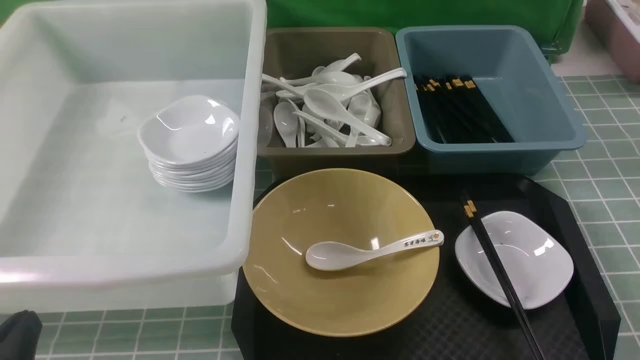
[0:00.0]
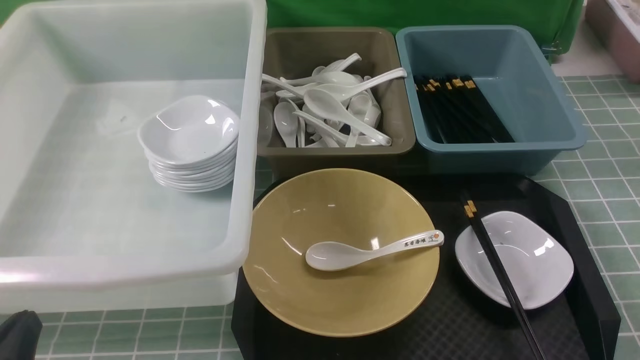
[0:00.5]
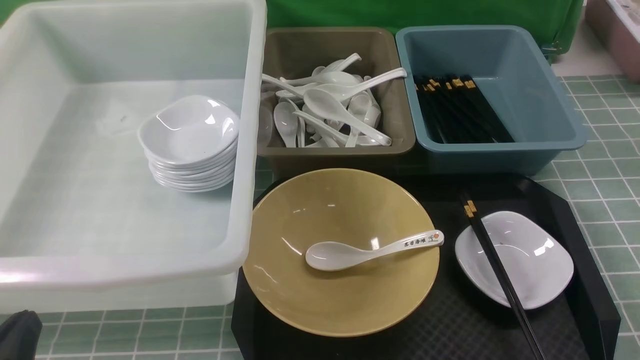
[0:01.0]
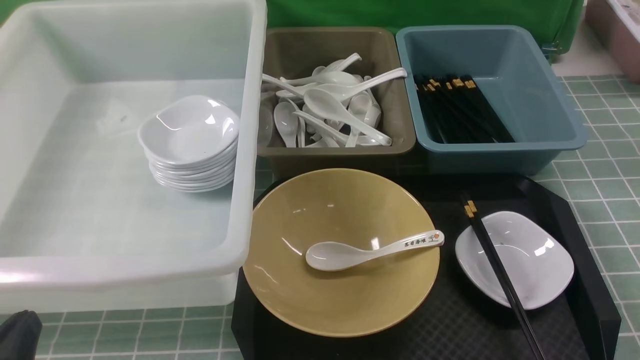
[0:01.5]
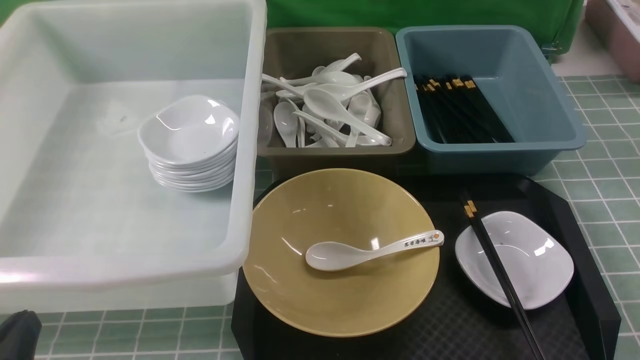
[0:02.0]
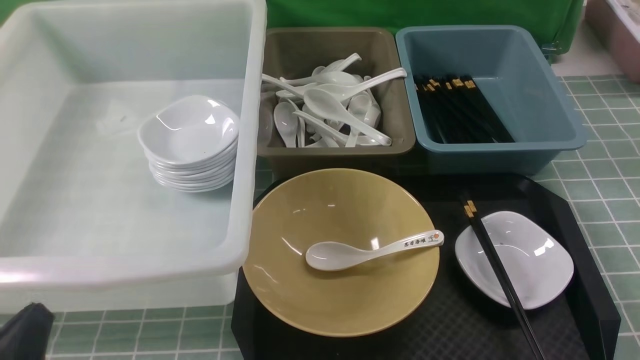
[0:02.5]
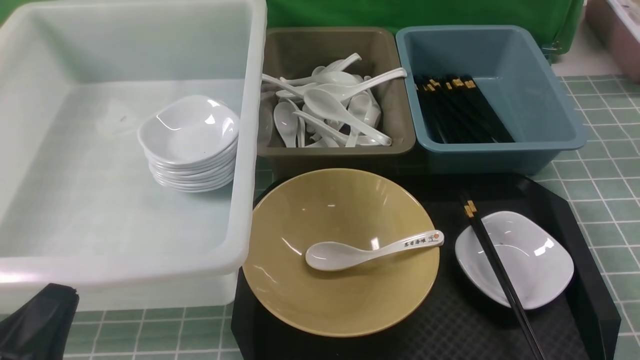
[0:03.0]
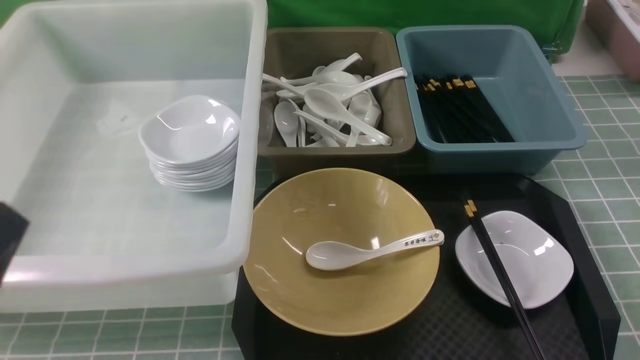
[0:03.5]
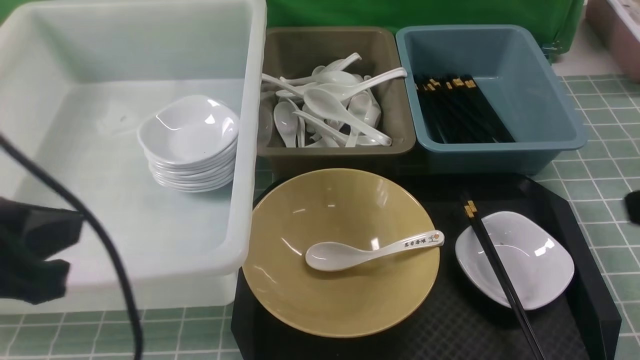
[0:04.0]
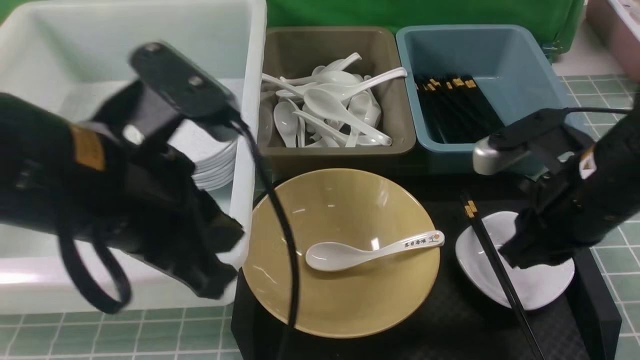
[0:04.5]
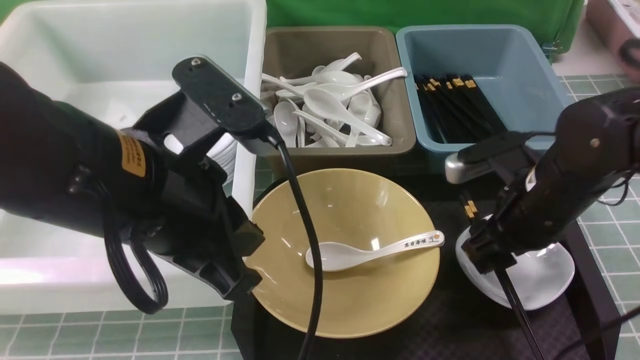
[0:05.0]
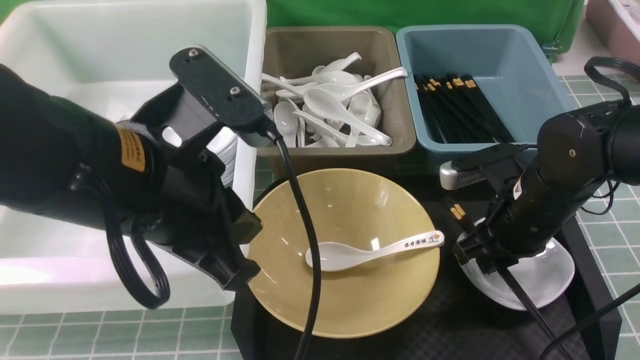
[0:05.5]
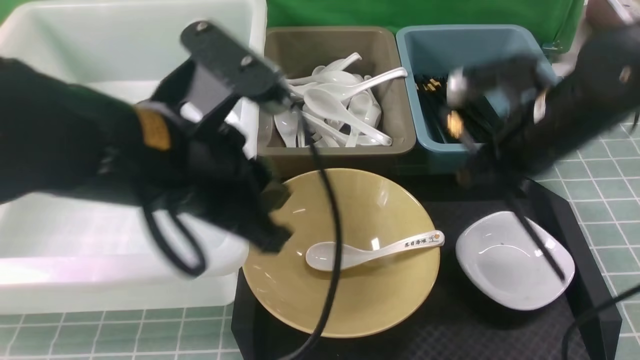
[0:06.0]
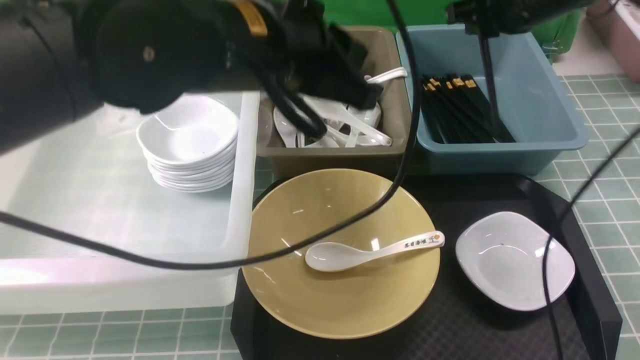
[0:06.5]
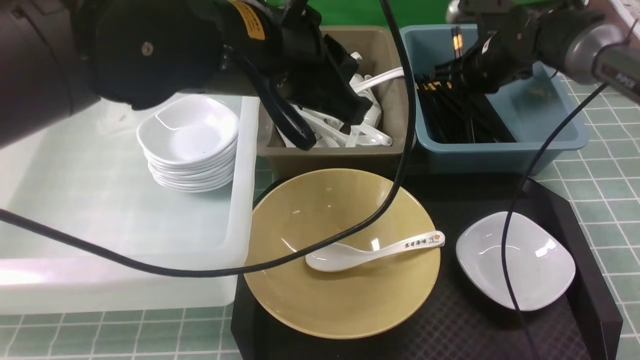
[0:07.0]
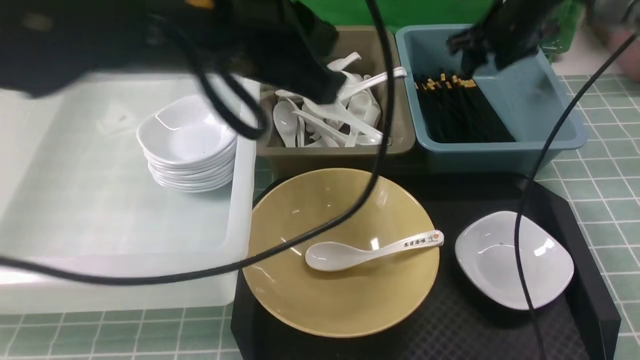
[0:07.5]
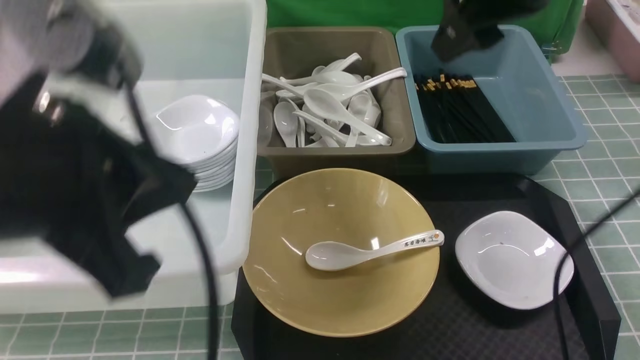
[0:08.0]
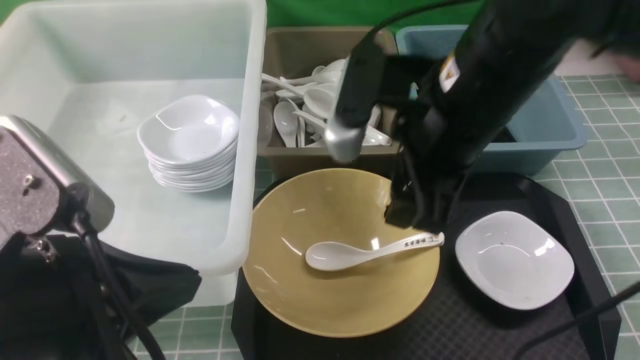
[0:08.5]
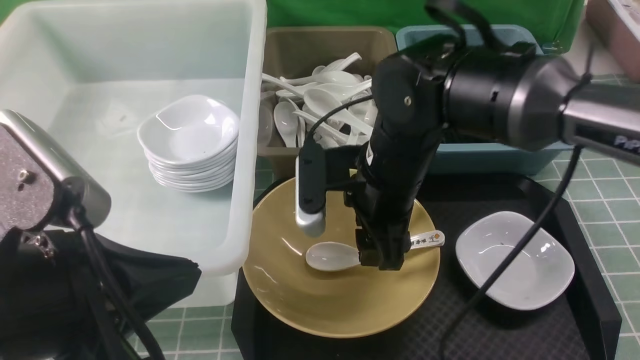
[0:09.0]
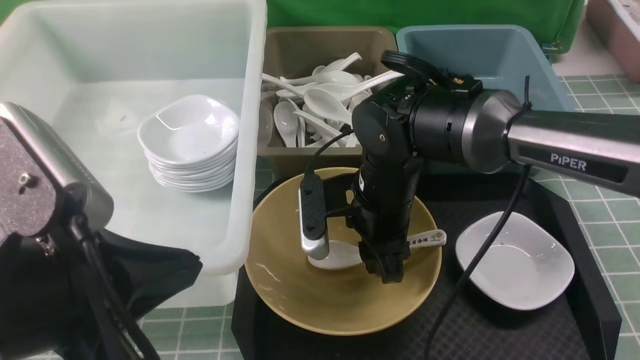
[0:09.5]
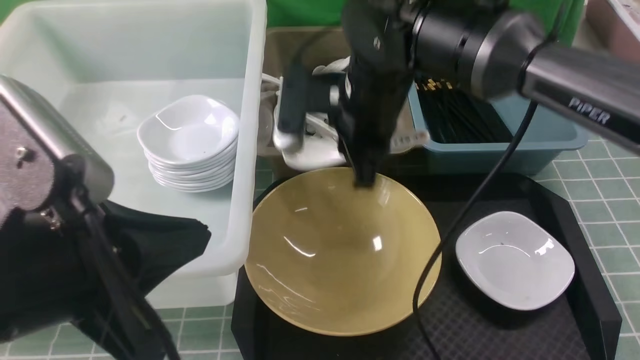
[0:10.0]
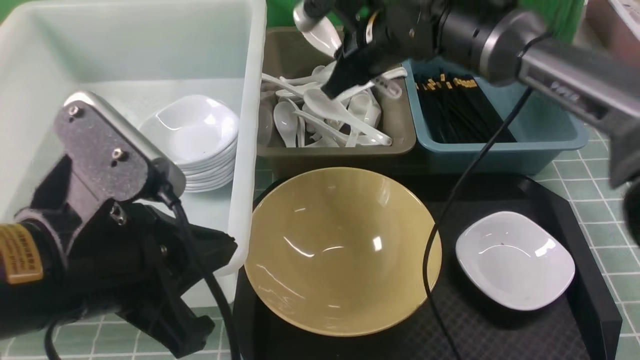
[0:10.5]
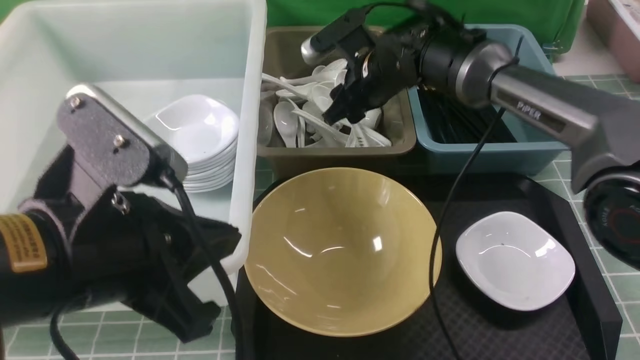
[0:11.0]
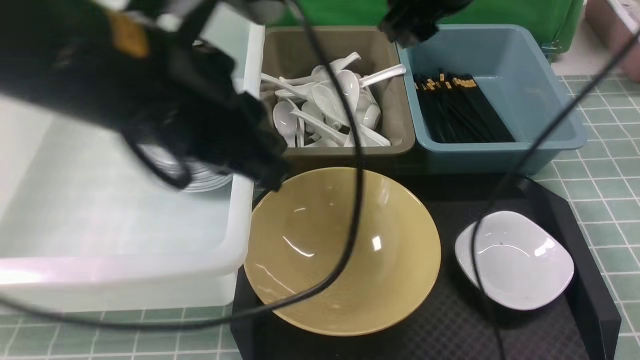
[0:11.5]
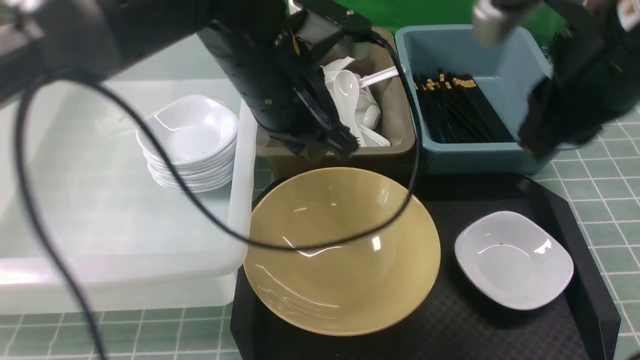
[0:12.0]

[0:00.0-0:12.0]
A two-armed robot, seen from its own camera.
Task of the whole recording: on blue table put chopsticks spoon bowls plates into blue grey white boxes.
Step, 0:00.0 to 0:05.5: use the right arm to grab the chopsticks.
Step, 0:06.0 to 0:07.5: use the right arm to put the chopsticks into the small storage box on the right.
Step, 0:08.0 to 0:09.5: use the right arm to grab the soup spoon in the middle.
Step, 0:10.0 to 0:11.0: use the right arm to put the soup spoon into the small storage box in the middle.
0:00.0 to 0:02.0: Neither gripper changes place.
0:02.0 to 0:04.0: The left gripper heads upward and forward, covering about 20 cm.
0:04.0 to 0:06.0: The left gripper moves to the right and forward, about 15 cm. Meanwhile the right gripper heads forward, covering some 20 cm, and opens and closes again.
0:06.0 to 0:08.0: The left gripper is displaced backward and to the left by approximately 10 cm, while the right gripper moves upward, some 15 cm, moves roughly 20 cm forward and comes back, and opens up.
0:08.0 to 0:10.0: The left gripper shifts by approximately 5 cm. The right gripper is displaced downward and to the left by approximately 15 cm, and closes its fingers.
0:10.0 to 0:12.0: The left gripper shifts approximately 25 cm forward and to the right; the right gripper heads to the right, backward and upward, covering roughly 20 cm, and opens and closes again.

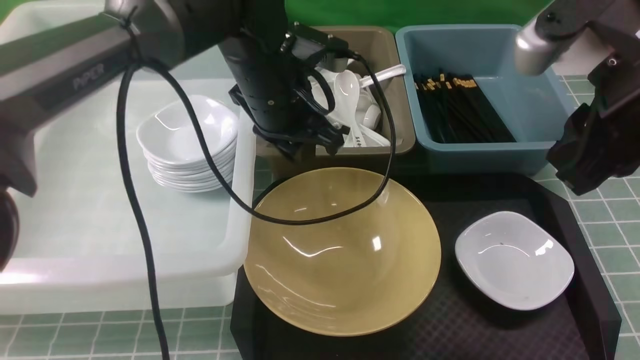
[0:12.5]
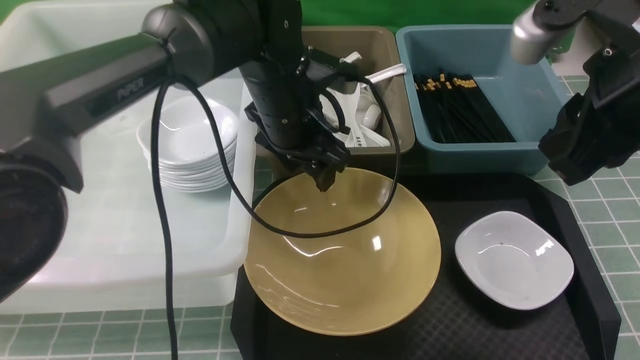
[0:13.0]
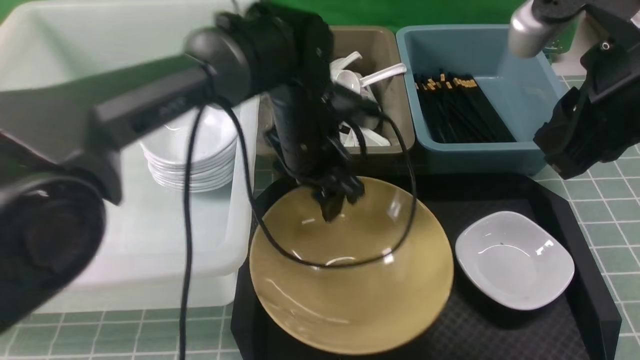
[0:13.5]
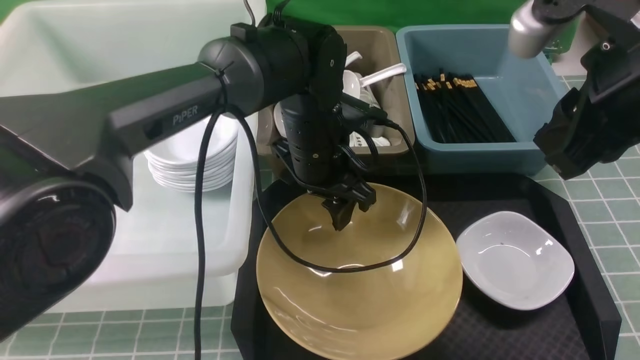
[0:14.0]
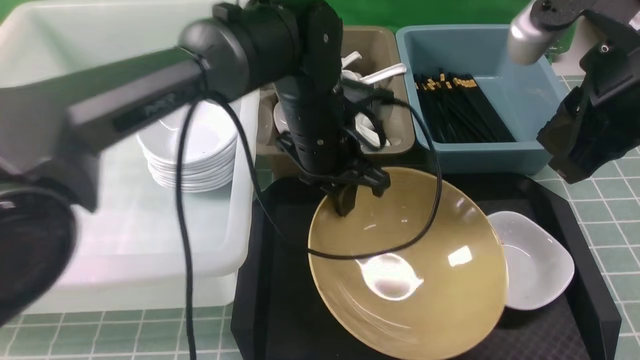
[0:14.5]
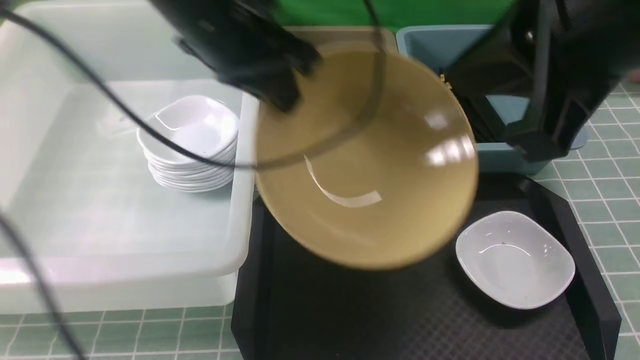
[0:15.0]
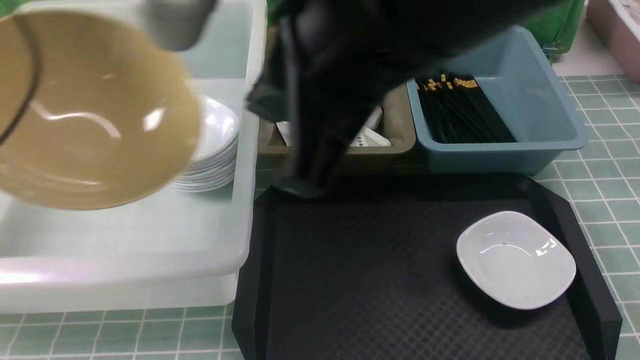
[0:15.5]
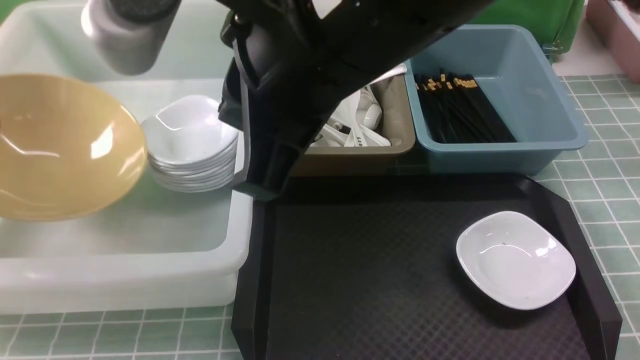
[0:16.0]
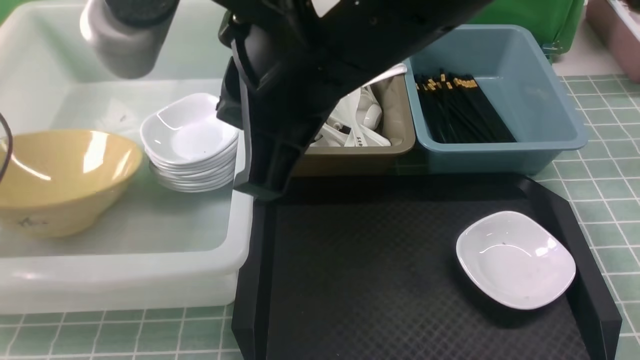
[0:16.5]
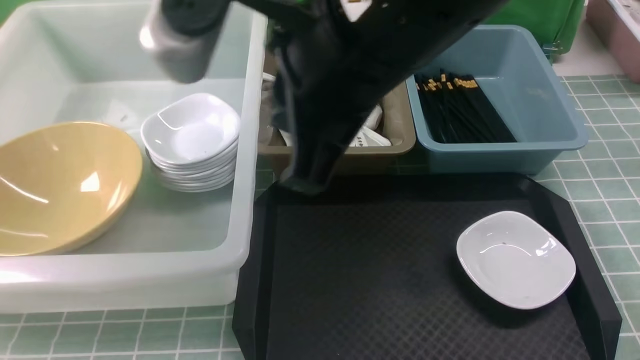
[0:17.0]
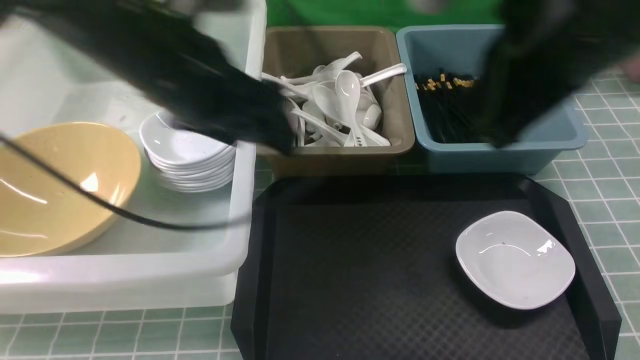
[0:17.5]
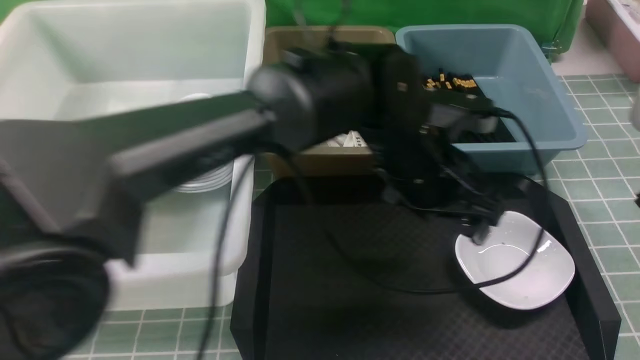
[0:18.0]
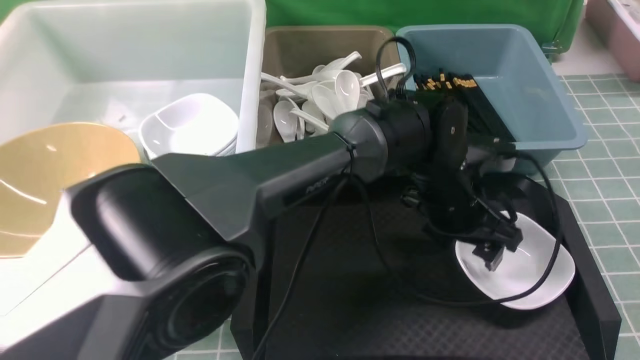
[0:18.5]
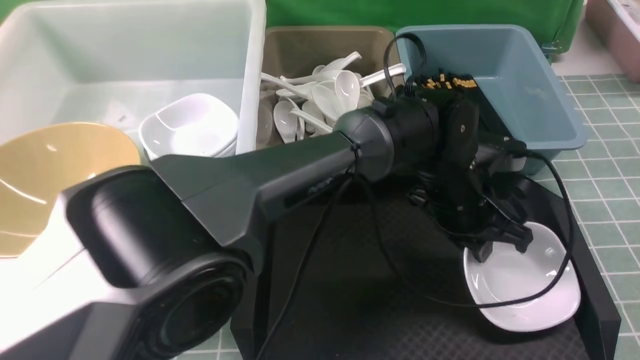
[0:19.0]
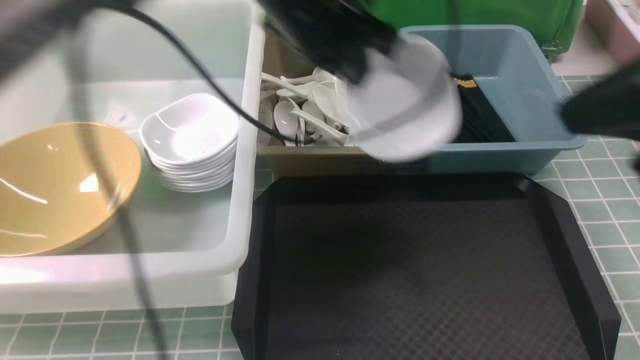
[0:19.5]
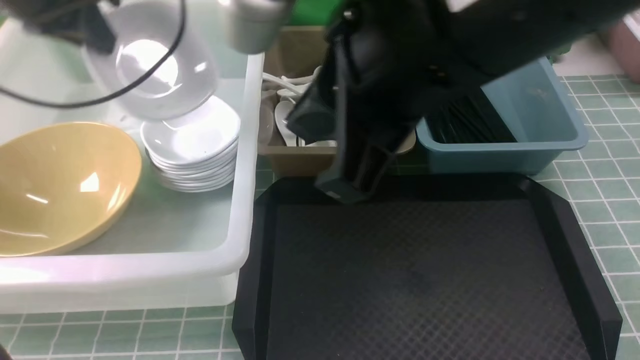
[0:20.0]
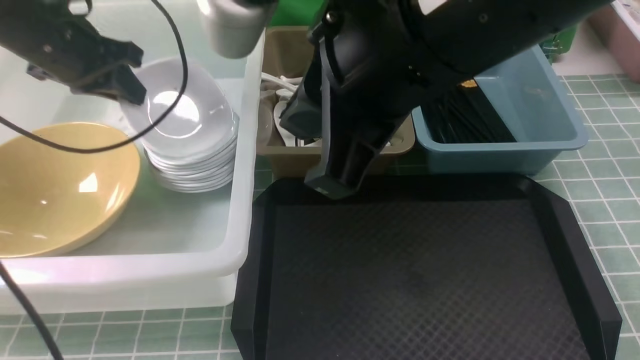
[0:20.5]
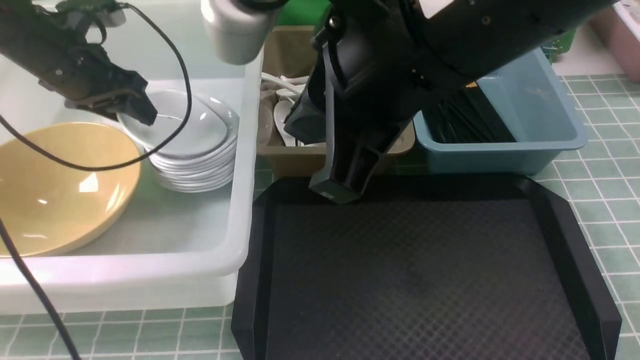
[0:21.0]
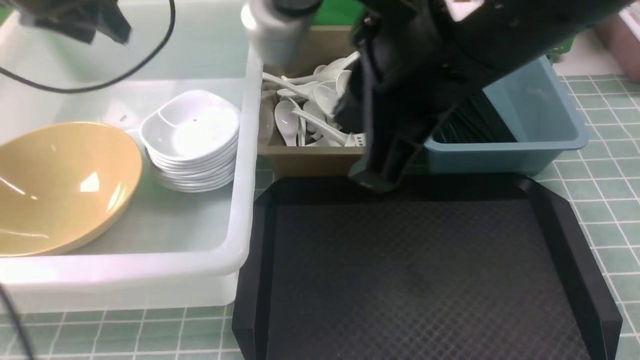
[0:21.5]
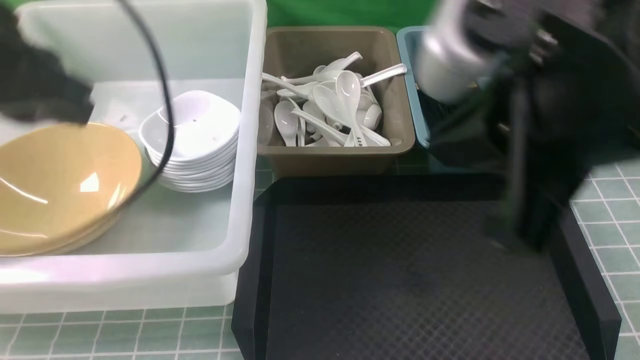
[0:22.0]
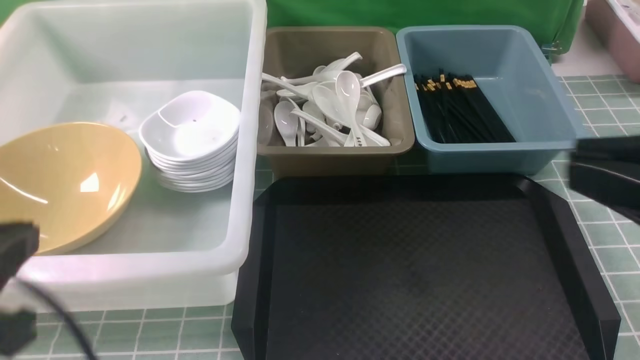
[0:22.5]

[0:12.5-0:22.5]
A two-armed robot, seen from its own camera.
Task of the whole recording: on blue table put chopsticks spoon bowls plates into blue grey white boxes.
Step, 0:12.5 to 0:14.5: use the left arm to grab the yellow noodle bowl on the left.
Step, 0:15.0 to 0:16.5: use the left arm to put the noodle bowl into the large storage box on the left.
Step, 0:17.0 to 0:19.0: use the left arm to grab the plate.
Step, 0:19.5 to 0:21.0: use the left arm to put the plate into the large storage box on the left.
0:12.5 to 0:14.5: The left gripper opens, then closes once more.
0:14.5 to 0:16.5: The right gripper is displaced to the left by about 20 cm; the left gripper shifts approximately 40 cm to the left, and opens up.
0:16.5 to 0:18.5: The left gripper shifts about 60 cm to the right. The right gripper shifts about 25 cm to the right.
0:18.5 to 0:20.5: The left gripper moves to the left, roughly 40 cm, and closes. Meanwhile the right gripper travels to the left by approximately 20 cm.
0:20.5 to 0:22.5: The left gripper moves backward, about 35 cm, and opens, then closes again, while the right gripper is displaced to the right and backward by some 20 cm.
